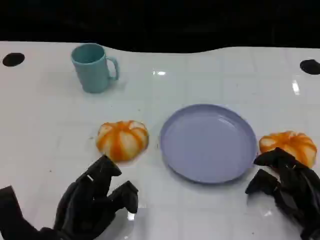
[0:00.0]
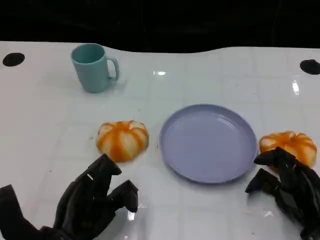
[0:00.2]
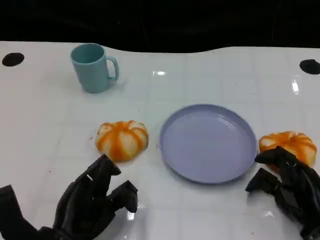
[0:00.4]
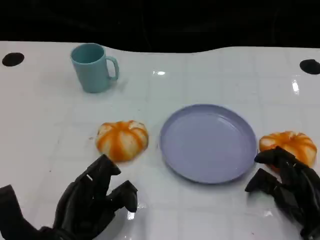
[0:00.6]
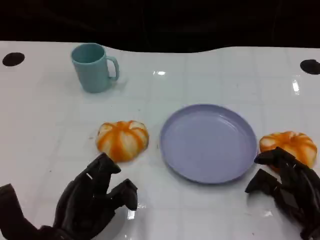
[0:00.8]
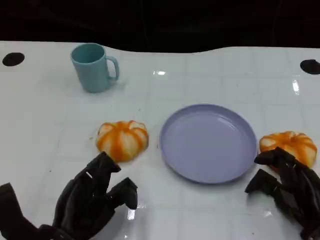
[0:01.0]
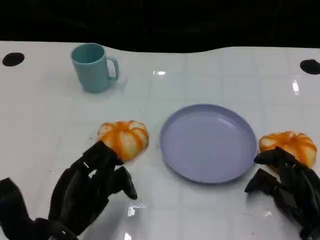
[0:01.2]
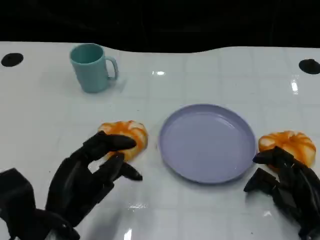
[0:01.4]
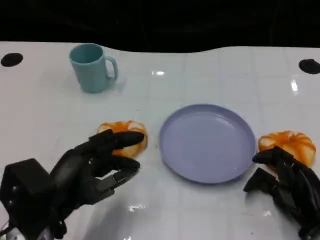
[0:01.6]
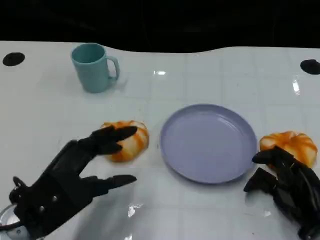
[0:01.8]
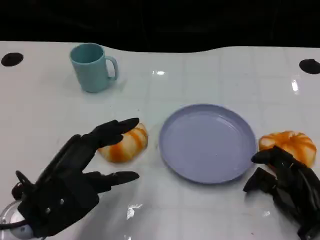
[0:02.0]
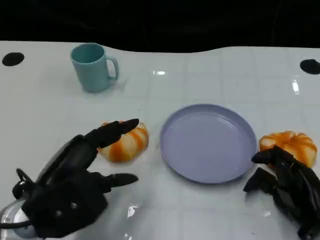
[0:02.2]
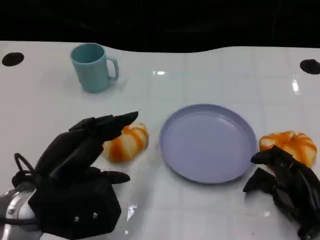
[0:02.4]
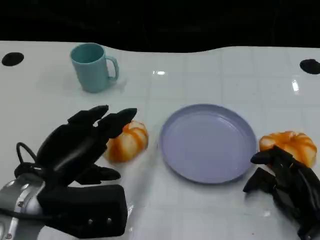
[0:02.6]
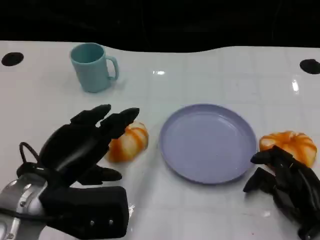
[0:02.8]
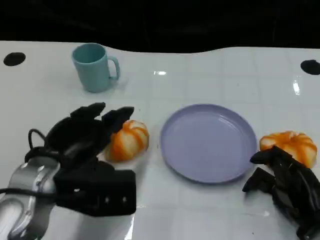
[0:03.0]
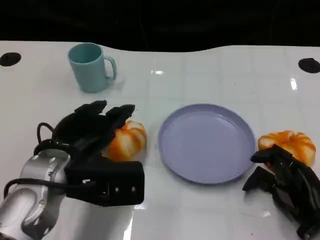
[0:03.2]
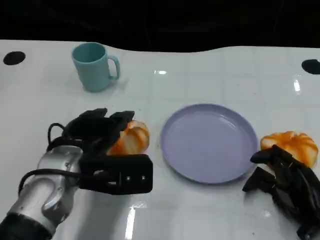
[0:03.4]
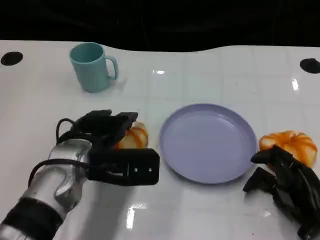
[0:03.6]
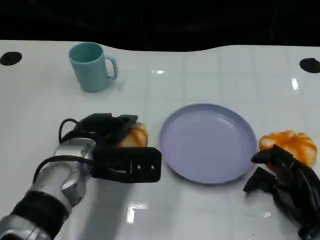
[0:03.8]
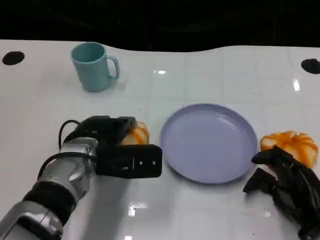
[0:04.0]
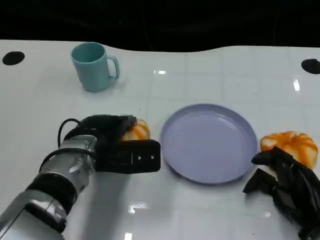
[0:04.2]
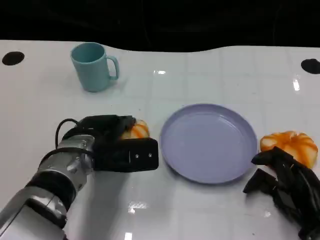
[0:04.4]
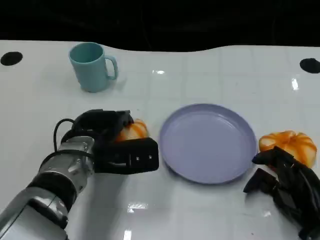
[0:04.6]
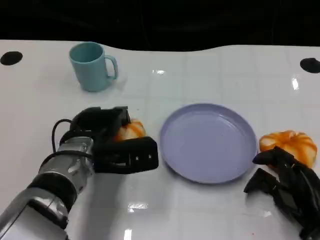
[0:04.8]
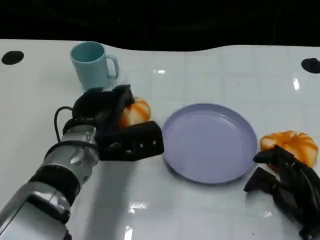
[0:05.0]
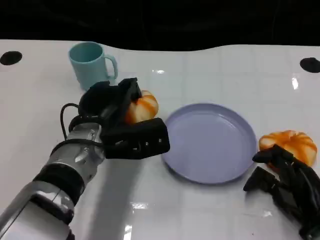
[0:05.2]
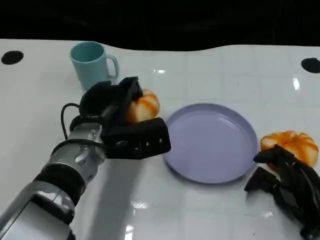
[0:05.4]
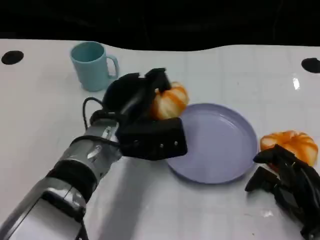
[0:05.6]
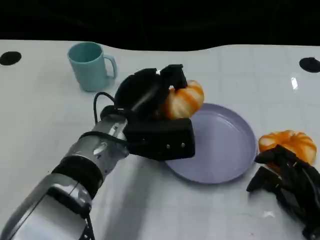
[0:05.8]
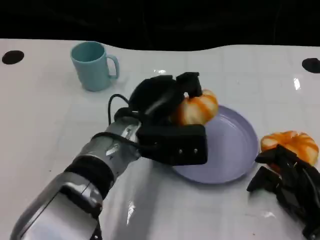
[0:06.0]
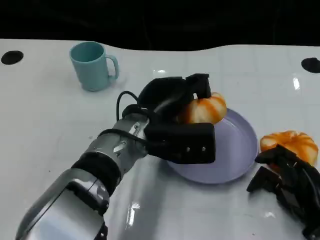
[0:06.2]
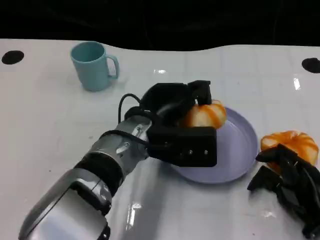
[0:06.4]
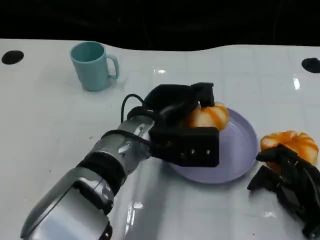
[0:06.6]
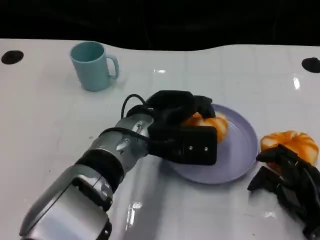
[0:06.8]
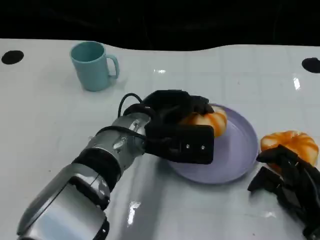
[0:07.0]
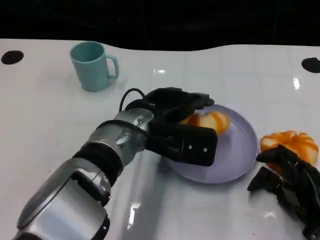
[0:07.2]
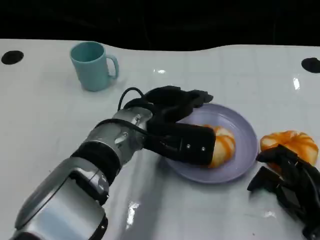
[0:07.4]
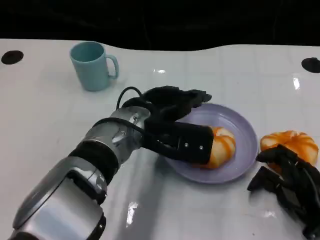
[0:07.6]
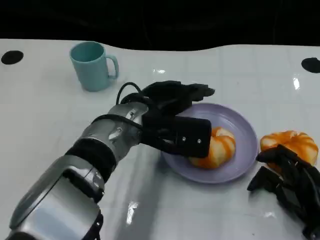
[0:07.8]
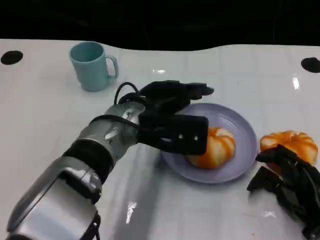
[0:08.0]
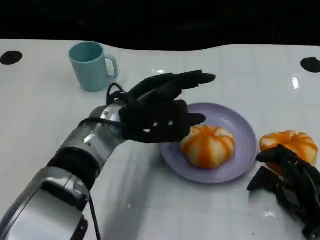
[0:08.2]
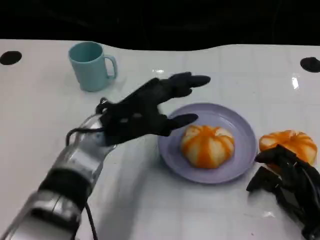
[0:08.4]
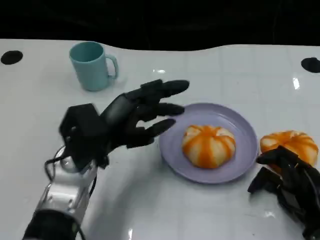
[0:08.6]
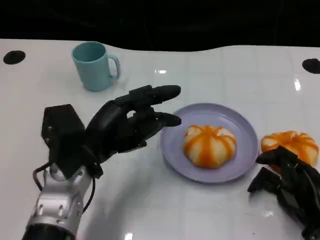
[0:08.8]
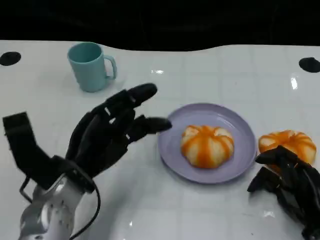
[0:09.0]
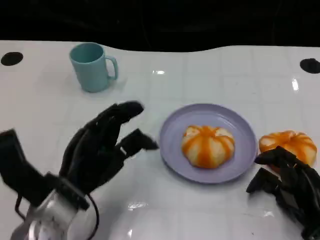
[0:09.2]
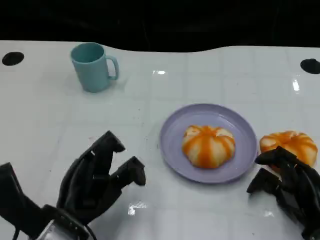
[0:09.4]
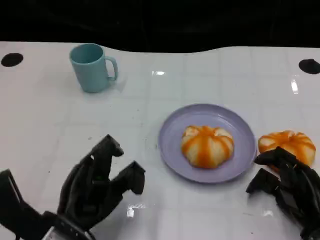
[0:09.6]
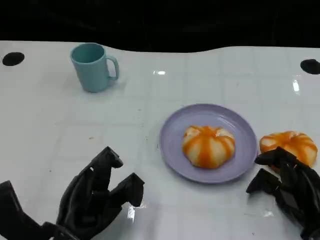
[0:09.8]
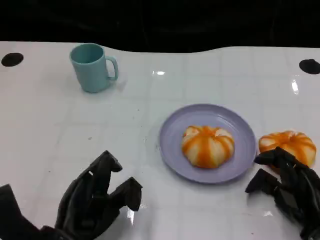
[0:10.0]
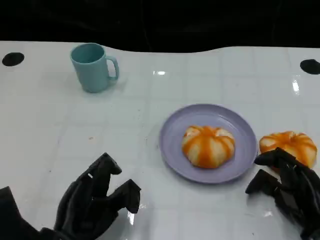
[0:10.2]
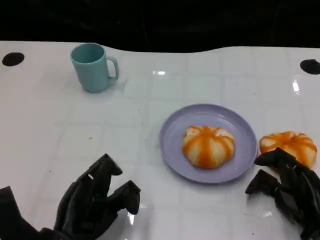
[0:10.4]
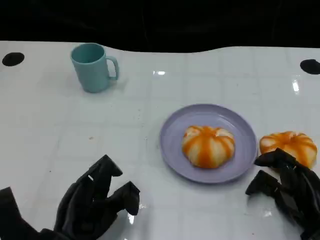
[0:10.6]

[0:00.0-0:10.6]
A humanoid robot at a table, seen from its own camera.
Task of the whole recording: Grasp the bread from the table and place it into the plate.
0.0 to 1.6 s: The left hand moves upward, some 5 cm.
1.6 to 3.0 s: The left hand is displaced forward by about 5 cm.
3.0 to 4.6 s: The left hand moves forward and downward, roughly 10 cm.
4.6 to 6.0 s: The left hand shifts about 10 cm to the right.
7.6 to 9.0 s: The left hand shifts roughly 15 cm to the left and backward.
9.0 to 10.6 s: The left hand travels backward by some 5 cm.

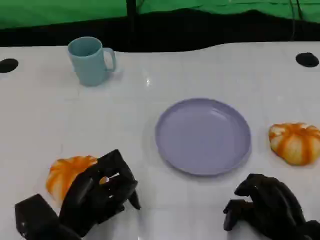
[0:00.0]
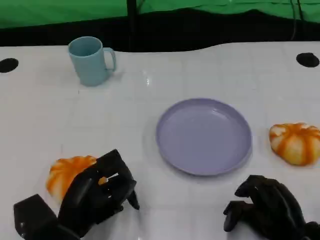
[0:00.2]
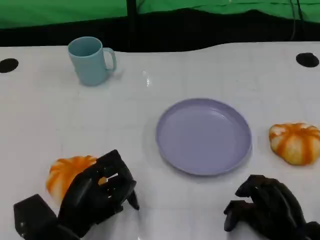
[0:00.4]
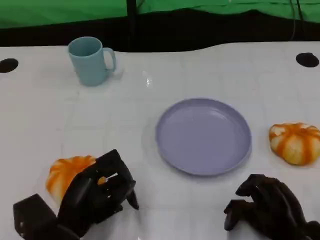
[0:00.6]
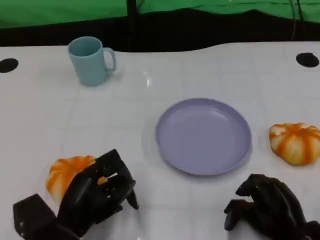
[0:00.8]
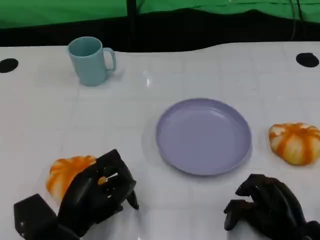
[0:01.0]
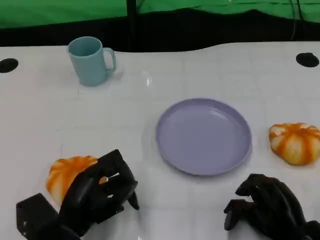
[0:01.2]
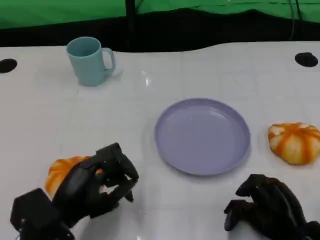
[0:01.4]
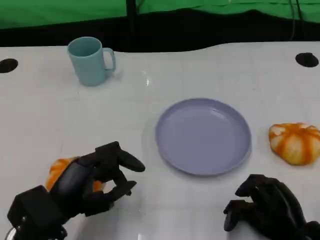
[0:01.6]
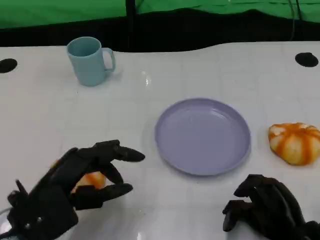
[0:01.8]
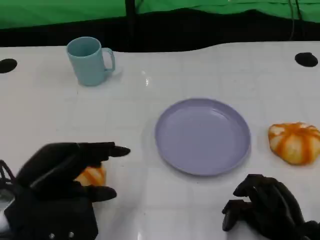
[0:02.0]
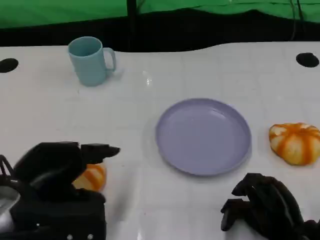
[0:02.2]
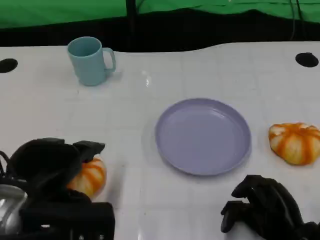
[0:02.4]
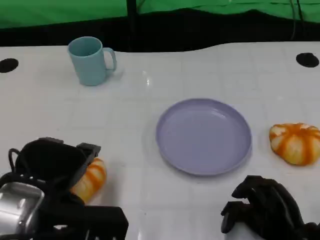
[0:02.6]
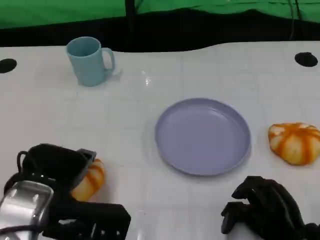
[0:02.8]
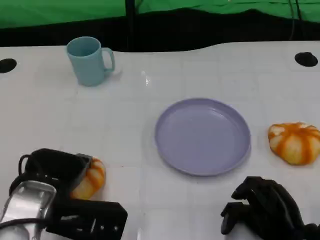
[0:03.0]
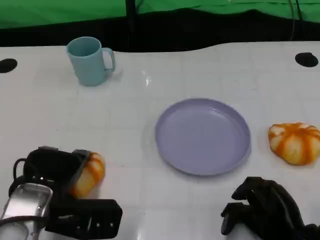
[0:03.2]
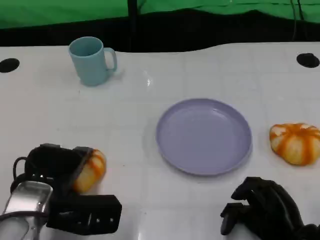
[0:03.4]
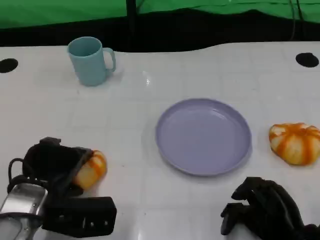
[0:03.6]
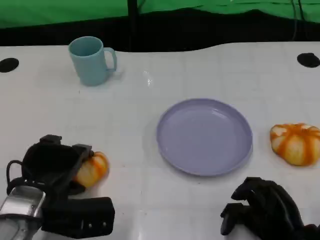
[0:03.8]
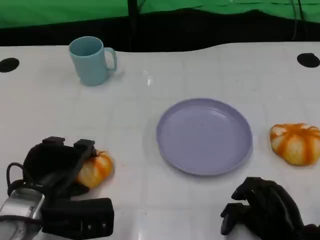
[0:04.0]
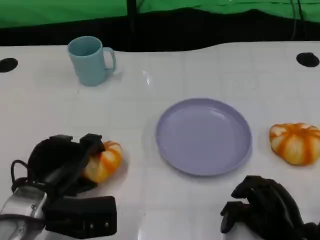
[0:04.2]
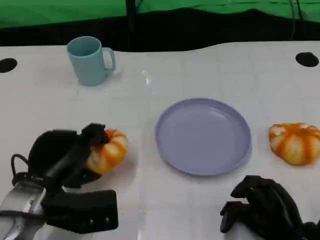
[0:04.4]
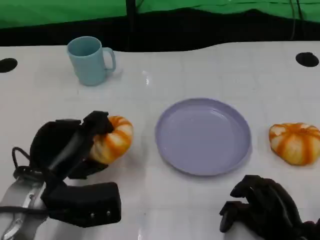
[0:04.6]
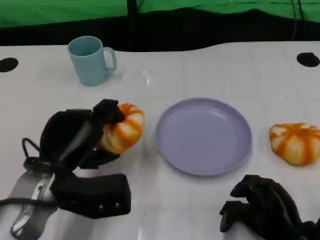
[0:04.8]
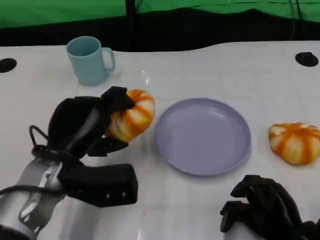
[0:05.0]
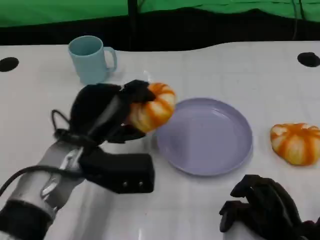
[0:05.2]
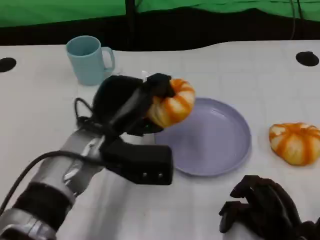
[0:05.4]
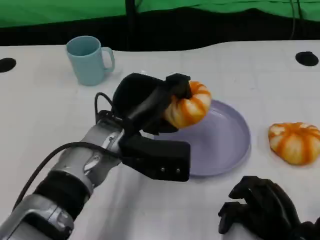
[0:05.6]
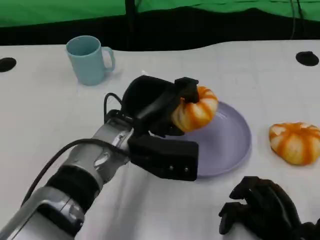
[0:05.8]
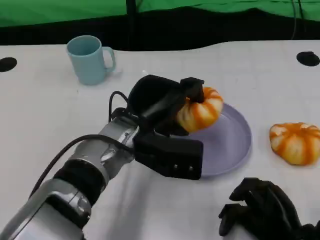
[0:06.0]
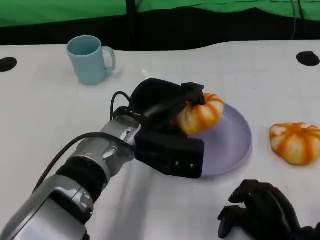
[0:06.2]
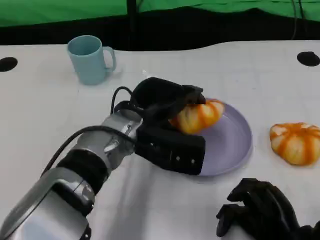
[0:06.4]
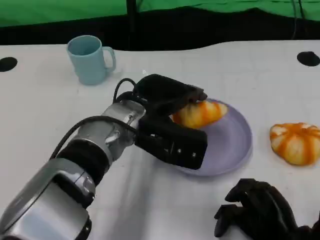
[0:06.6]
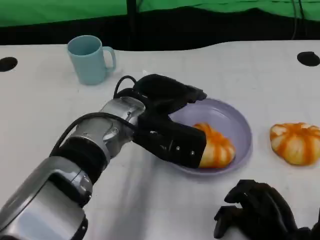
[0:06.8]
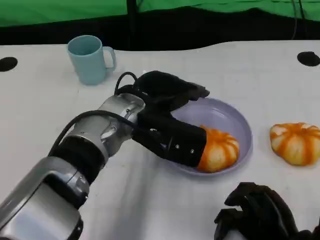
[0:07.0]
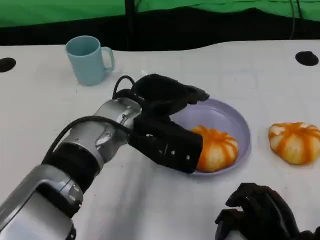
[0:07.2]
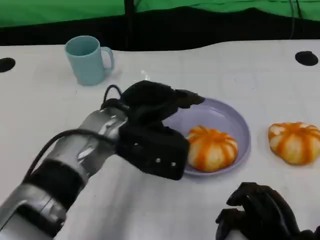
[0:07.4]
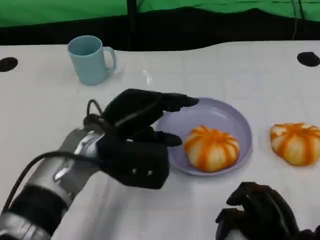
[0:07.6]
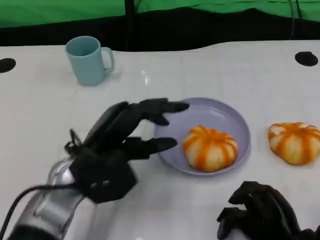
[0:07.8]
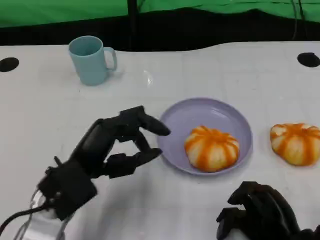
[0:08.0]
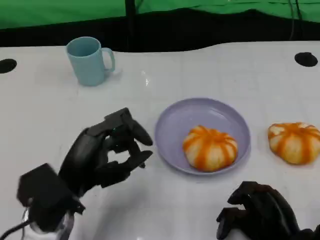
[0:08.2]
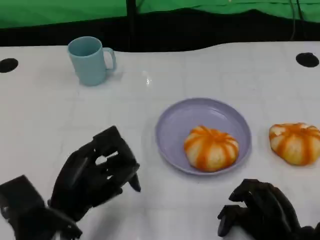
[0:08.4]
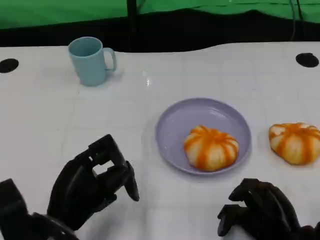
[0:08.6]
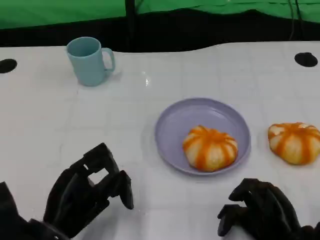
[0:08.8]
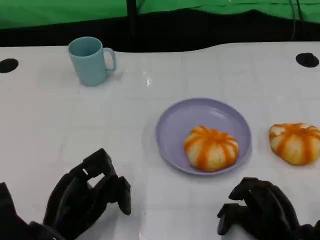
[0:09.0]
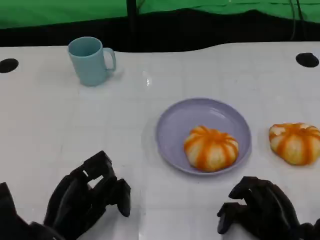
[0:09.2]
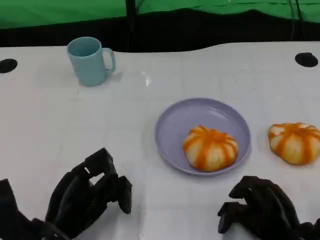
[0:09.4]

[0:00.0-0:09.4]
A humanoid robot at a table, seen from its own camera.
Task of the whole recording: Grasp the bread from the table and place it into the plate.
0.0 to 1.6 s: The left hand shifts by about 5 cm.
1.6 to 3.2 s: The left hand reaches some 10 cm upward, then returns.
4.8 to 6.2 s: The left hand heads to the right and forward, covering about 15 cm.
6.2 to 7.8 s: The left hand heads to the left and backward, covering about 10 cm.
7.8 to 9.4 s: The left hand travels downward and backward by about 10 cm.

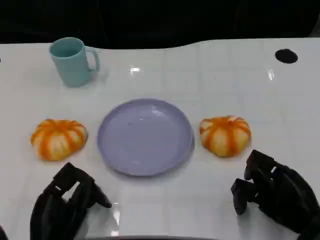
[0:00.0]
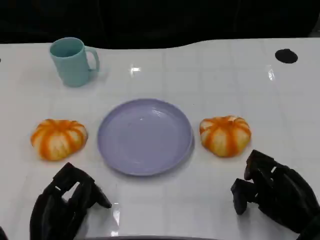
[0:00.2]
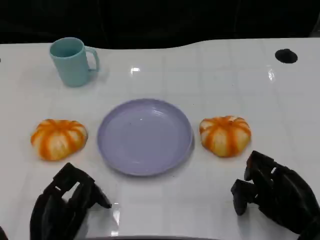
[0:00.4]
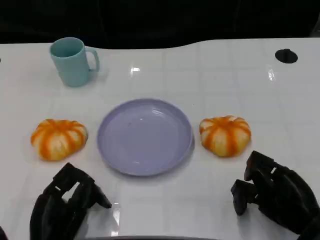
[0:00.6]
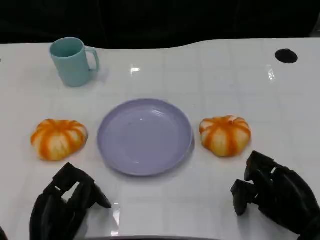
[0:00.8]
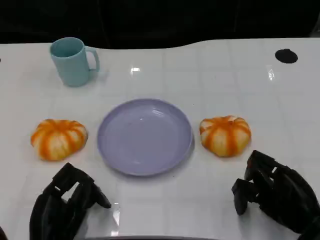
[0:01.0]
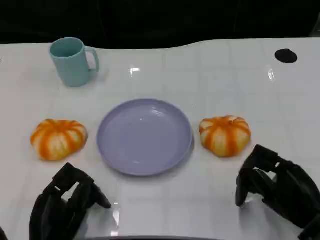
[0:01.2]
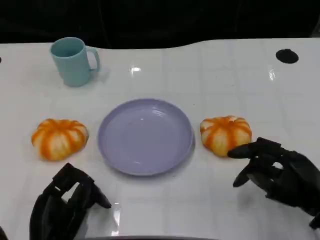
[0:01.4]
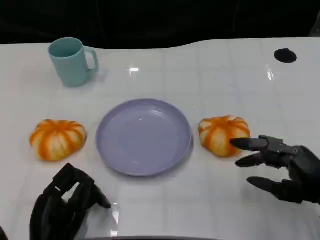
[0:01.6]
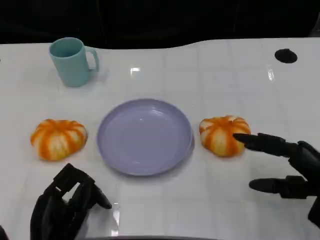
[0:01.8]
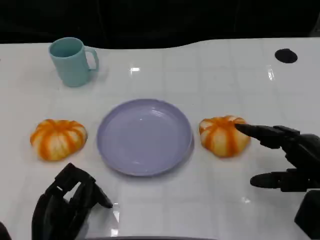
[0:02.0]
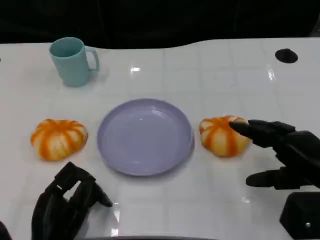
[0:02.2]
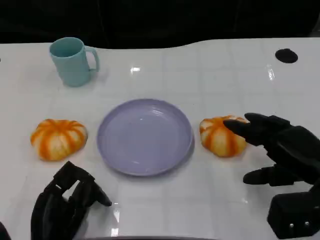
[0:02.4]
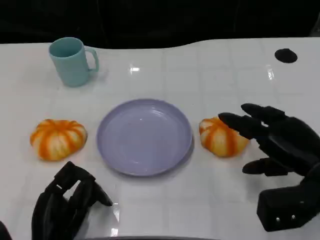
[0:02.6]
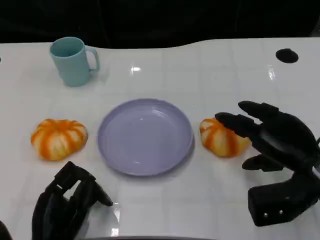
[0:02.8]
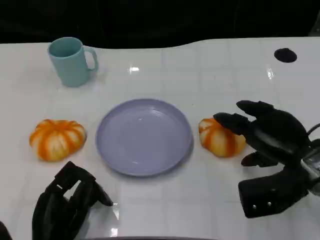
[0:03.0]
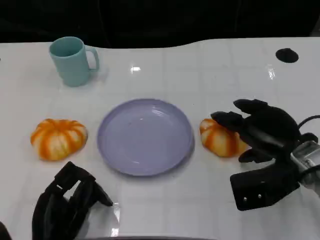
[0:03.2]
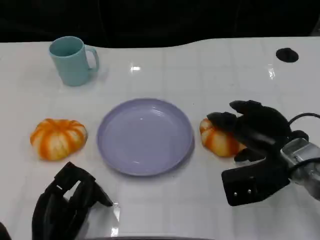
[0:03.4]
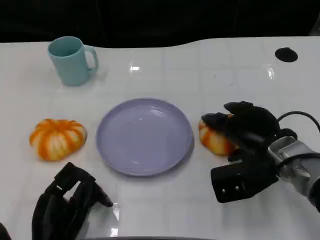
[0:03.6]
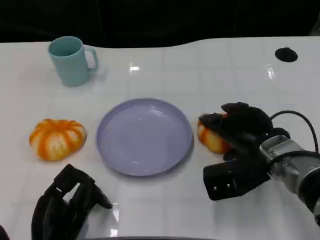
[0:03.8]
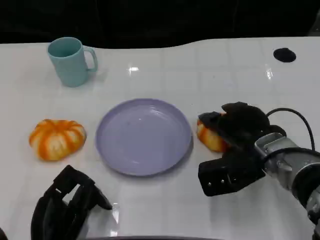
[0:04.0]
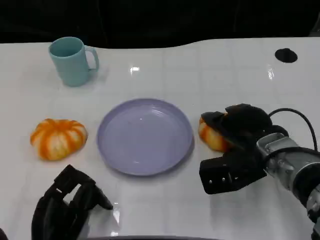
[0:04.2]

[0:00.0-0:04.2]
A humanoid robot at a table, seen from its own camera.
Task of the whole recording: Grasp the bread from the table and place it into the plate.
1.4 to 2.8 s: The right hand heads forward, covering some 5 cm.
2.8 to 4.2 s: The right hand goes roughly 5 cm to the left.
